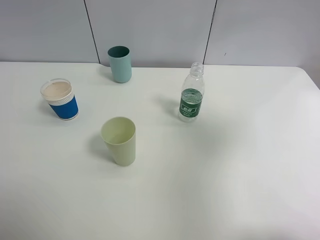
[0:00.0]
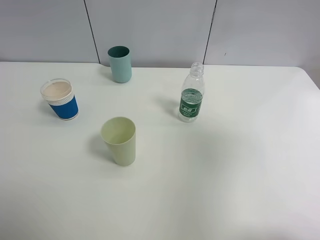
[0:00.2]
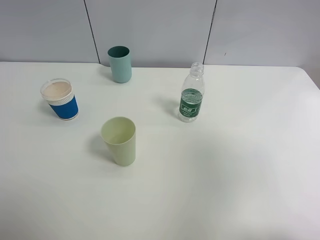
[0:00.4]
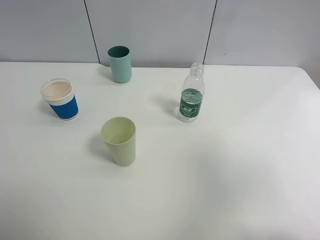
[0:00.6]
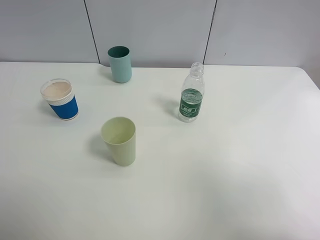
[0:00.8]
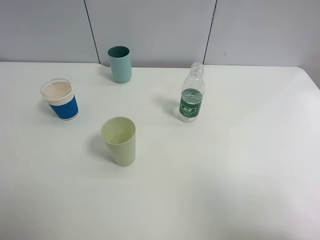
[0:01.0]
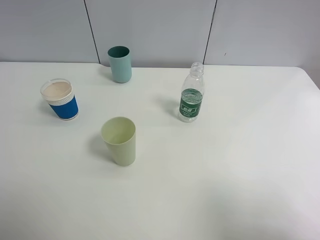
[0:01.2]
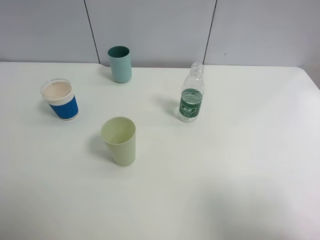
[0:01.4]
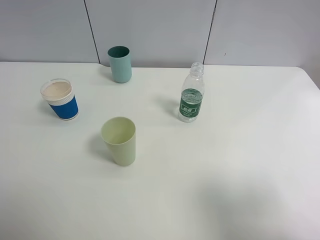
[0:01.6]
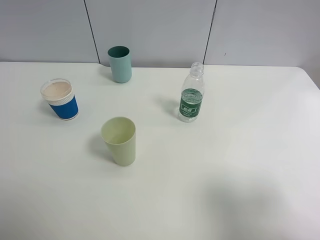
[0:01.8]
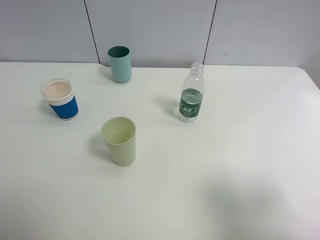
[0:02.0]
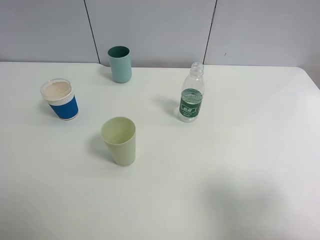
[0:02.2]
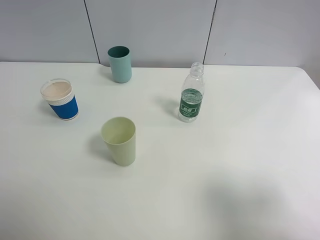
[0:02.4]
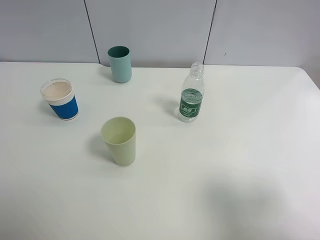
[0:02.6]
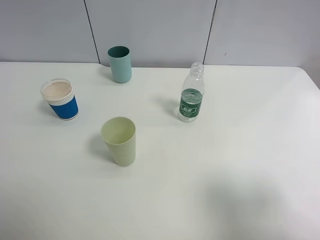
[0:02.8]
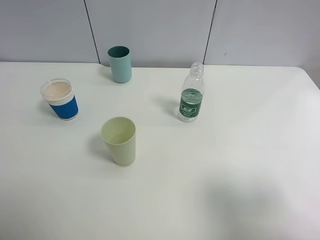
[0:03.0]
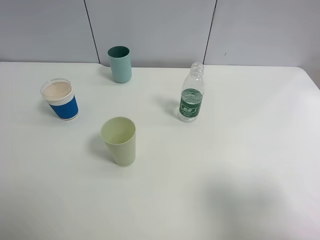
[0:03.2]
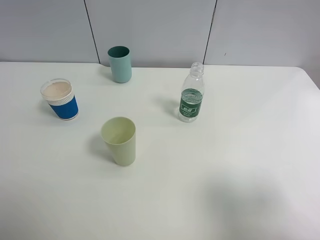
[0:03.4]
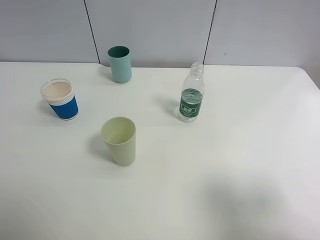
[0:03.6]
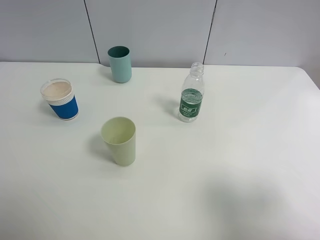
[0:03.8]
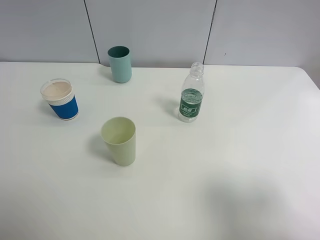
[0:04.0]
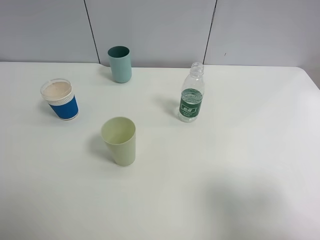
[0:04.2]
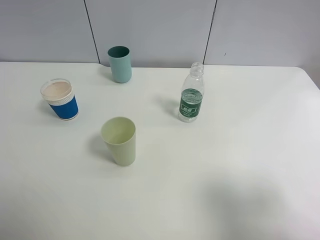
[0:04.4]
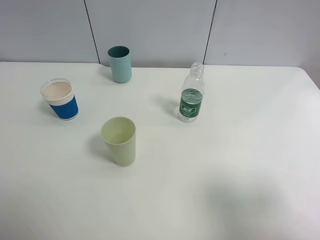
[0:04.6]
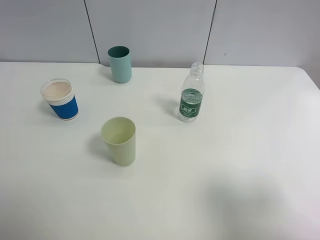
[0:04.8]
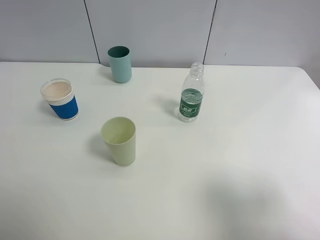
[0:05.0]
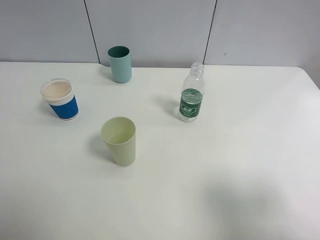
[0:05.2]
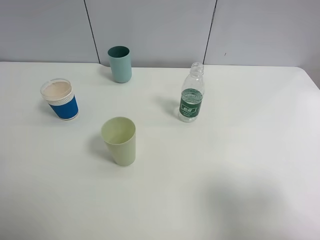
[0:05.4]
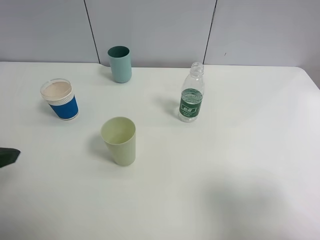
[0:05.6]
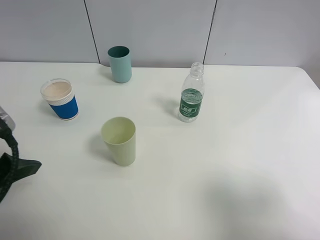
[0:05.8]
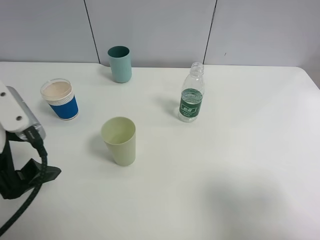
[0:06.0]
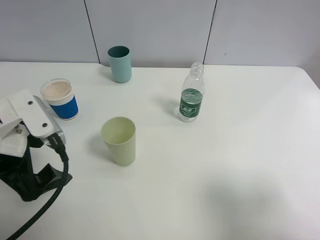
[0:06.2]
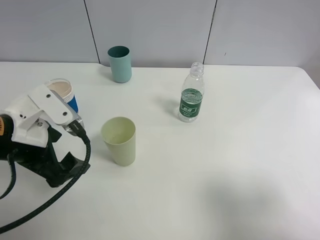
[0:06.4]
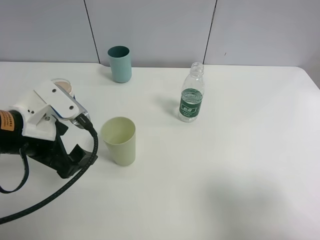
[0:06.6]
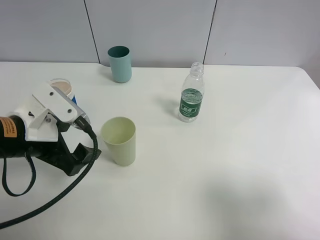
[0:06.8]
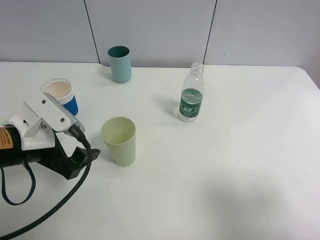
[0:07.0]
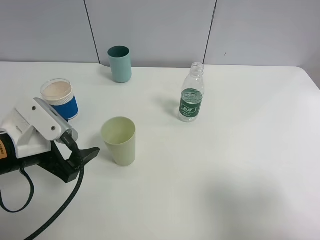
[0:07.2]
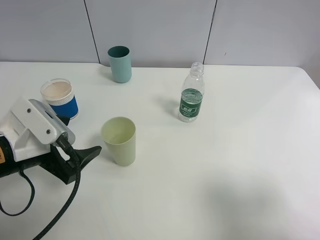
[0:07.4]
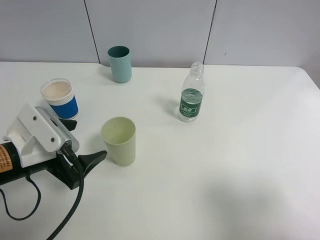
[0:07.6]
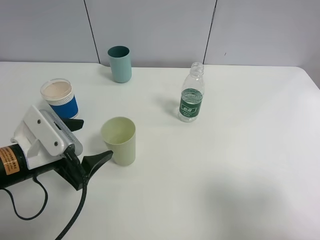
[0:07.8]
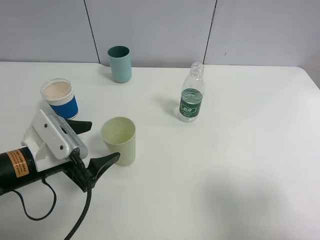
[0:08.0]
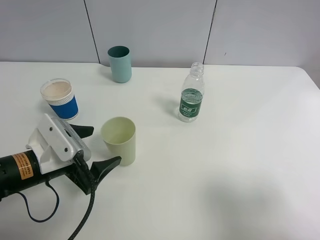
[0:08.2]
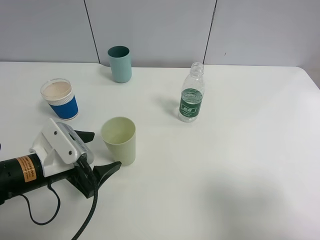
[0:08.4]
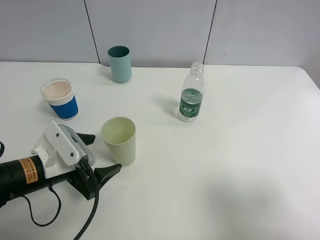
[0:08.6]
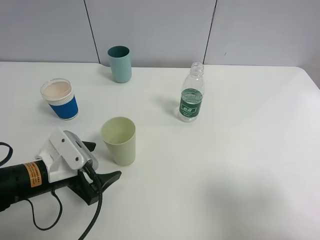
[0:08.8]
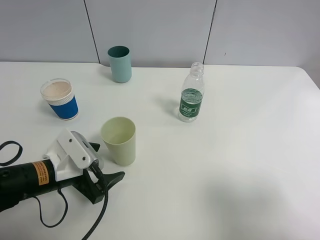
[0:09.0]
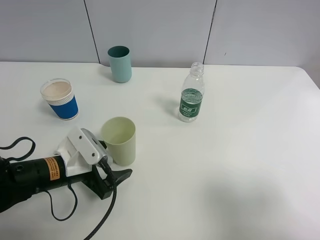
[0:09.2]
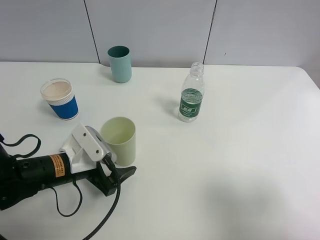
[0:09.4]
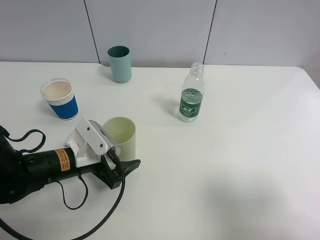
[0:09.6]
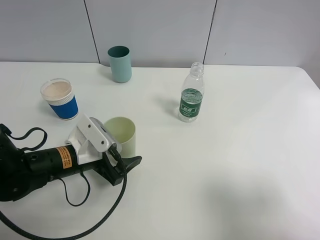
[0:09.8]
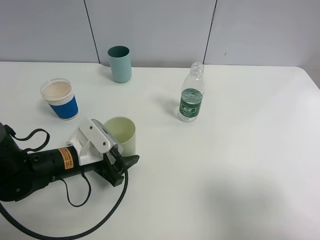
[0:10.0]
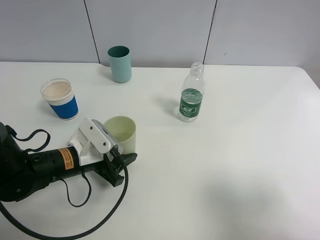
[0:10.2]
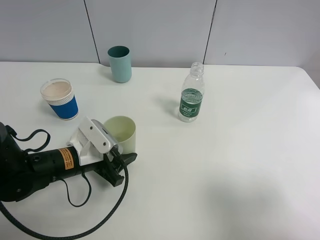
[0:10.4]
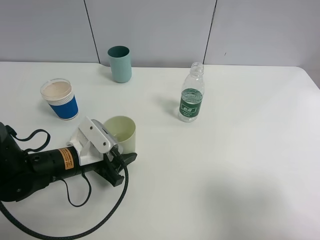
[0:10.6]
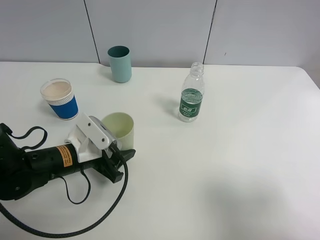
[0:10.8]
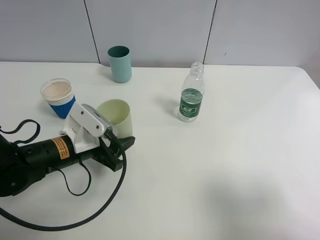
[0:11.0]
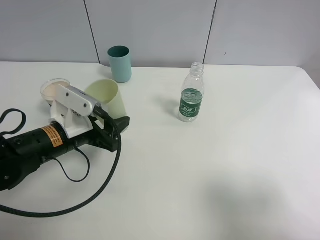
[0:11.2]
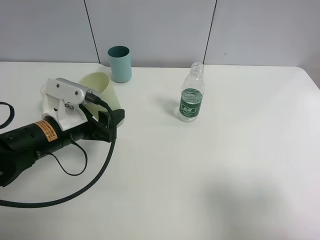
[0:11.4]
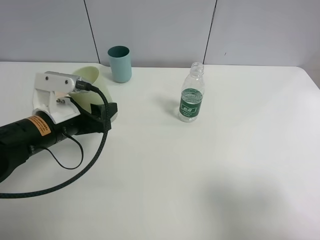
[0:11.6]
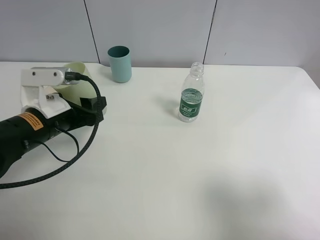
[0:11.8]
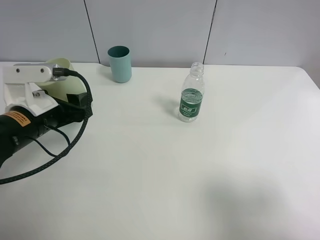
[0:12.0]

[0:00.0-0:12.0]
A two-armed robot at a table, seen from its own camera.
Task of the whole recording: use a clamp to hold the bottle of the drink, pour the beverage into a random cup, then clamp the cup containing the drink and pour the drink into another random cup.
Step, 0:00.0 to 0:11.0: Pick up the green plastic cup bottle with left gripper.
0:00.0 to 0:01.6: The right gripper moves backward and downward, approximately 15 cm.
0:03.0 to 0:04.4: Neither gripper changes place.
0:04.4 to 0:06.0: The left gripper heads forward, to the right and downward, covering some 15 cm.
0:06.0 to 0:07.6: The left gripper shifts approximately 5 cm downward.
0:07.6 to 0:09.0: The left gripper goes roughly 5 cm downward.
0:09.0 to 0:10.4: The left gripper closes its fingers.
0:10.4 to 0:12.0: The left gripper goes approximately 10 cm upward and to the left.

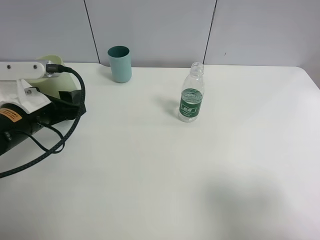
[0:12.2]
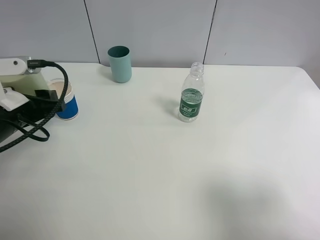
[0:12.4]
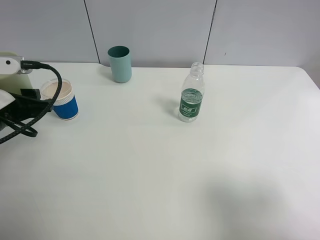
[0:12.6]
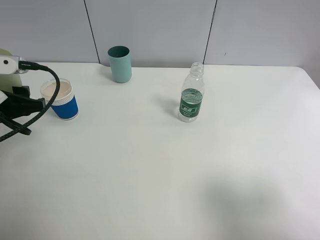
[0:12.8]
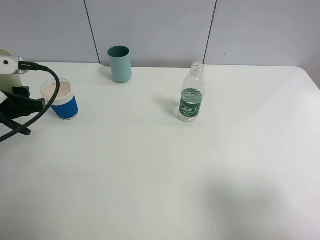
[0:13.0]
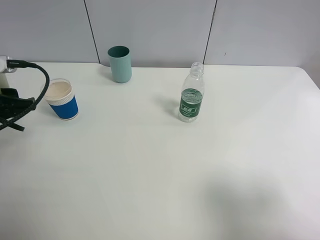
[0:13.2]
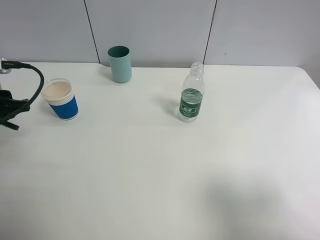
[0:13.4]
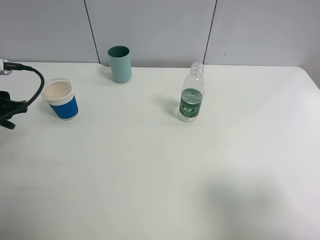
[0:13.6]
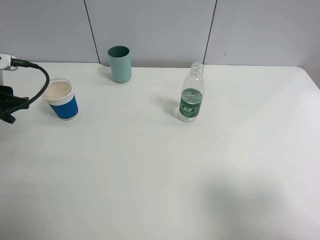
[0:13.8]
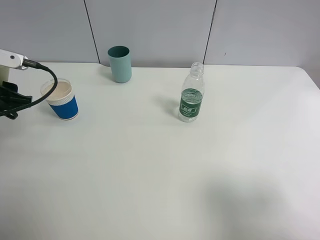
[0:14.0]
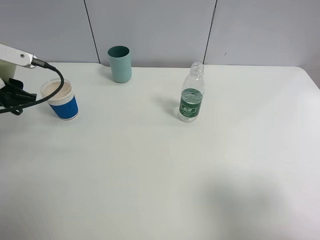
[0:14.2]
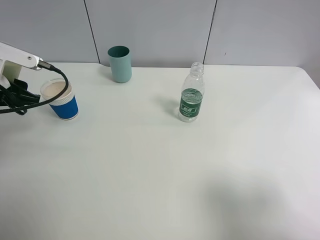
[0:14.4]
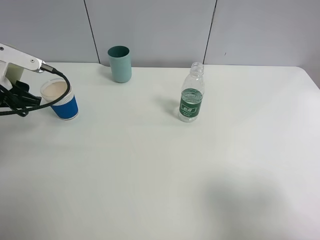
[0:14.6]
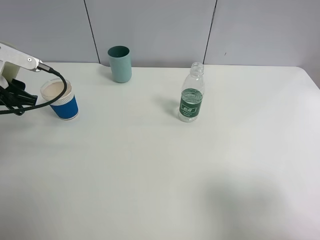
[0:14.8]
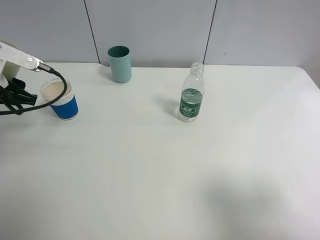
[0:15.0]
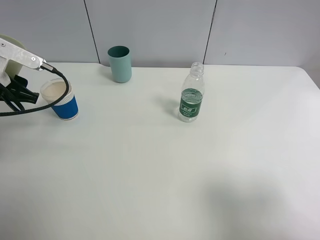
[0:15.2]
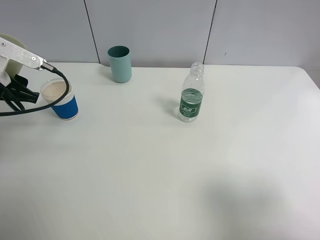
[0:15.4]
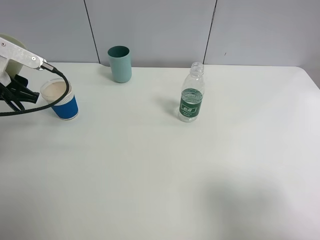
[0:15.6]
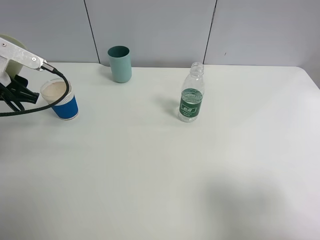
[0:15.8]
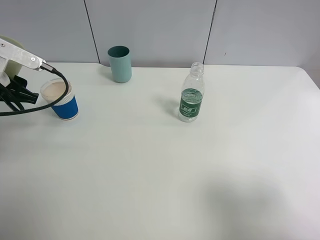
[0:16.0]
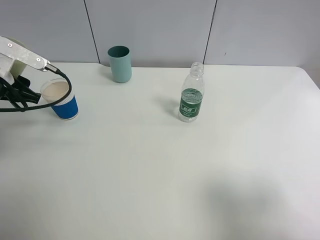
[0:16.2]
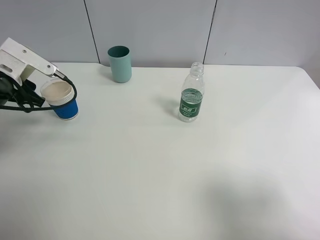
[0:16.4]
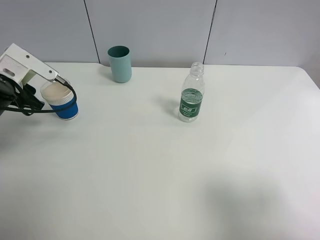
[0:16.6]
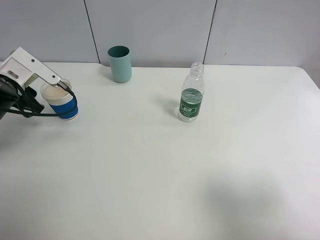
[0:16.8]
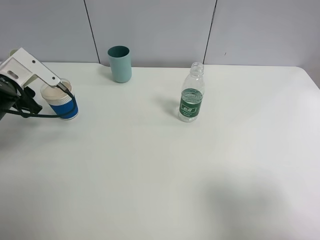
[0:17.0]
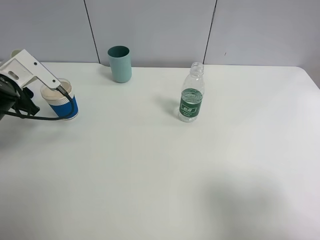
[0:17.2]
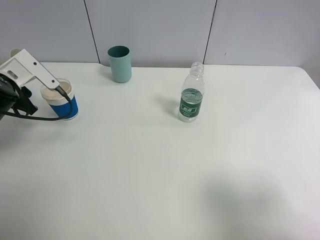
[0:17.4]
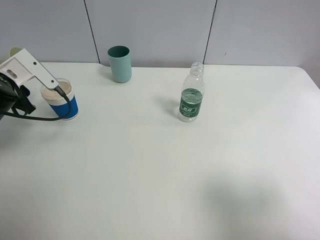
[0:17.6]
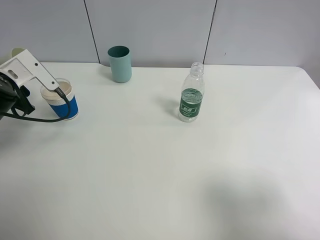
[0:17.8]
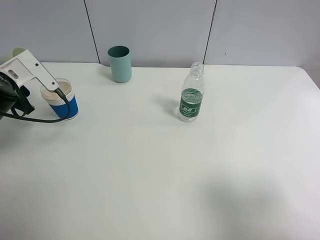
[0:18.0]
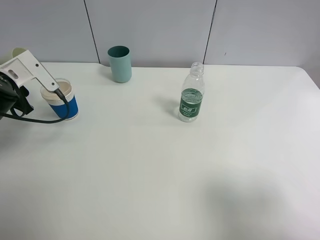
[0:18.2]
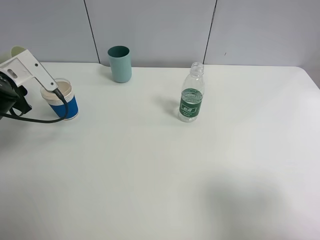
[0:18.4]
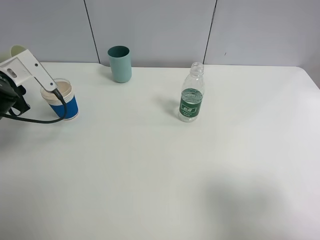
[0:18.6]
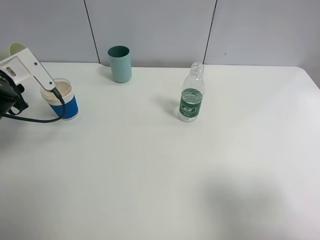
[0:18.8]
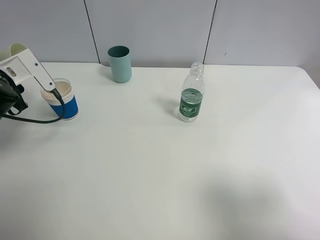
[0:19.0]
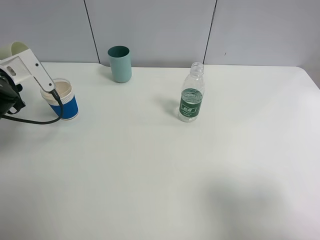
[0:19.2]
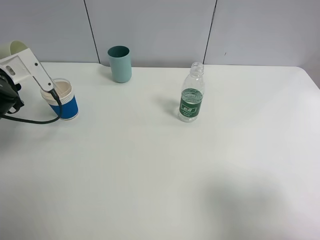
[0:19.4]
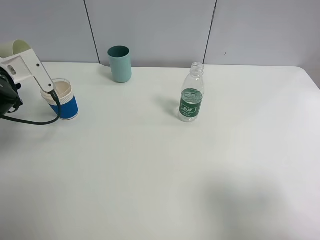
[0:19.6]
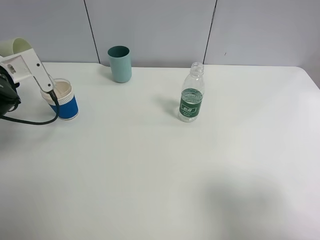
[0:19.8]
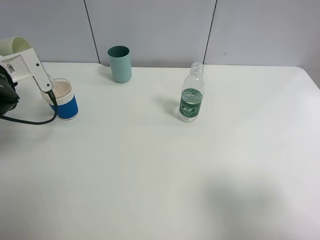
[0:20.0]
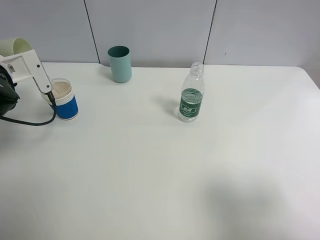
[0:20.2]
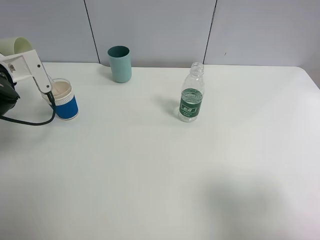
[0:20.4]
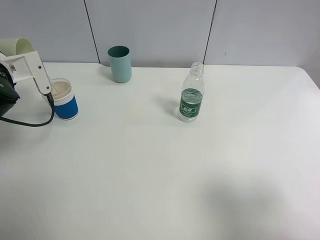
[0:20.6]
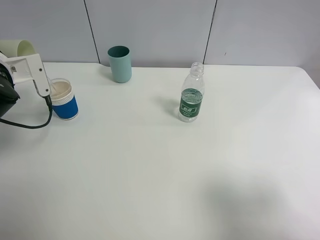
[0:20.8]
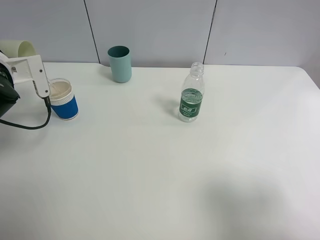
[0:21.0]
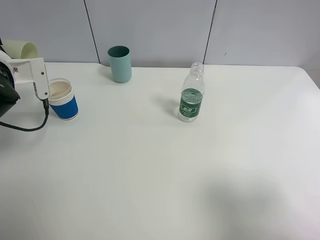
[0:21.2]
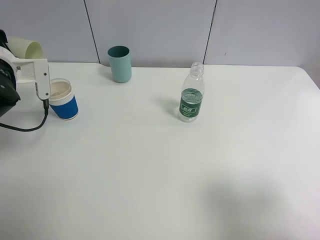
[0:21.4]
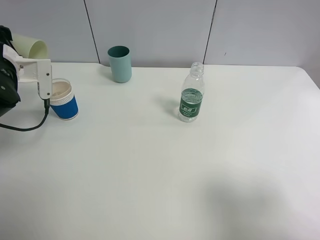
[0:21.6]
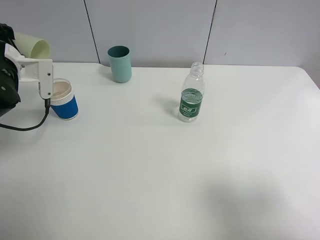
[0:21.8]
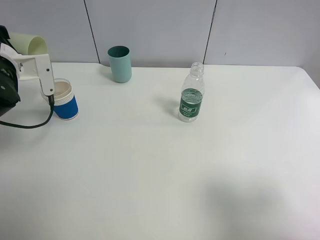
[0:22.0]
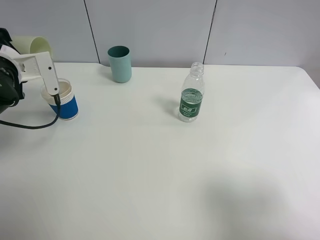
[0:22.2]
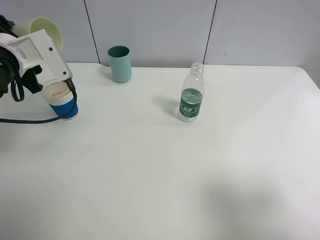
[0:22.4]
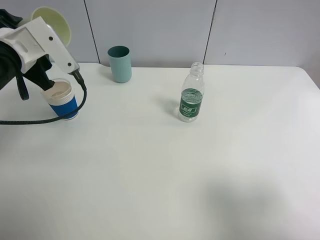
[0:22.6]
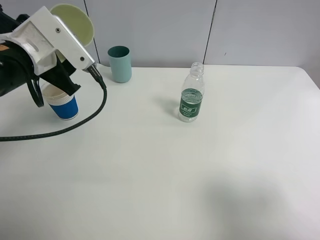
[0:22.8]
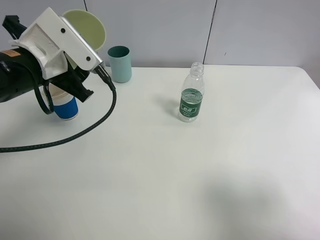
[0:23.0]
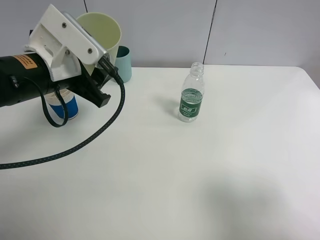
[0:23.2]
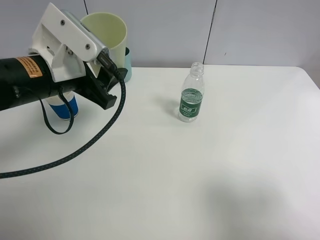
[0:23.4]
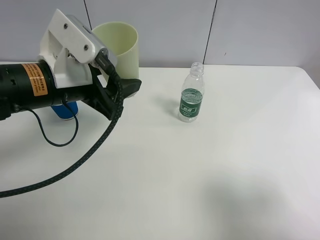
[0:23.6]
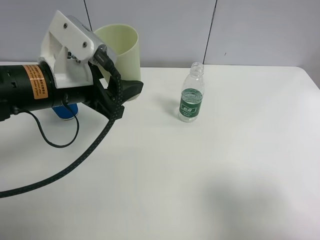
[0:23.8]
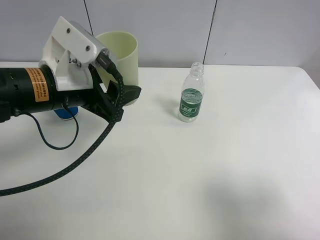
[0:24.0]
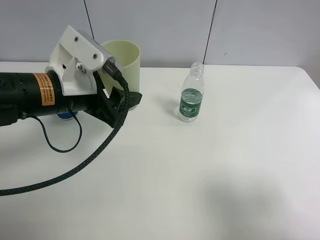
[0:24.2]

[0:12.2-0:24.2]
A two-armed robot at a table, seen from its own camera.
Task of the whole recording: use a clamp to hold the bottle of the drink, pour the beverage into a random cup, then clamp the cup containing the drink and pour the drink into another random cup.
Step, 0:12.2 to 0:22.6: Pour water into the paper cup with left gripper.
0:12.2 to 0:13.8: The left gripper moves to the left, about 10 cm.
0:13.8 to 0:15.2: There are only small adjustments of the grippers.
0:15.2 to 0:16.6: The grippers make only small movements.
0:16.6 to 0:18.2: There are only small adjustments of the grippers.
0:18.2 to 0:19.8: There are only small adjustments of the grippers.
0:19.8 to 0:21.2: There are only small adjustments of the grippers.
0:21.2 to 0:22.6: The left gripper goes approximately 5 cm to the right.
0:22.6 to 0:24.2: The left gripper moves to the right, roughly 10 cm.
